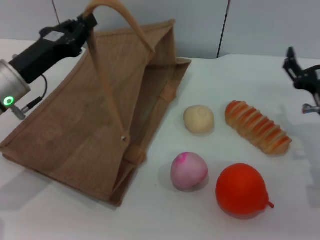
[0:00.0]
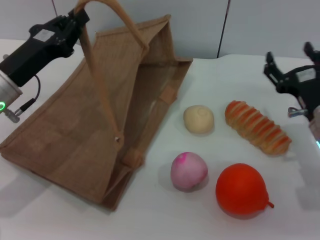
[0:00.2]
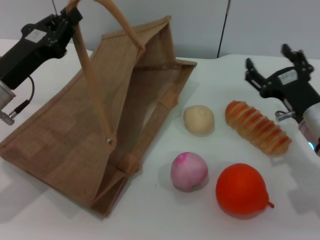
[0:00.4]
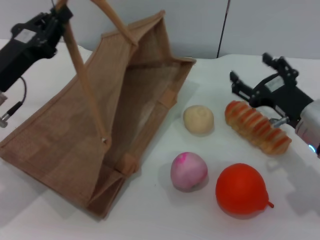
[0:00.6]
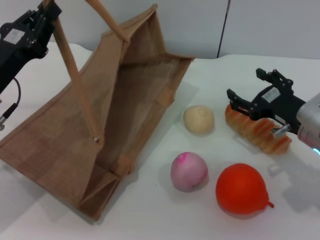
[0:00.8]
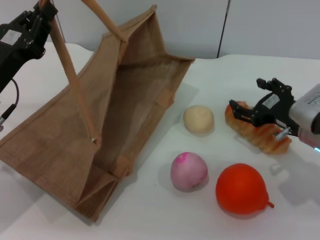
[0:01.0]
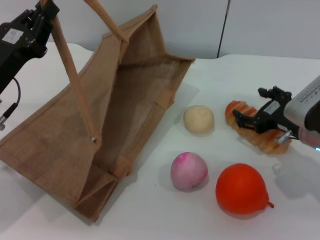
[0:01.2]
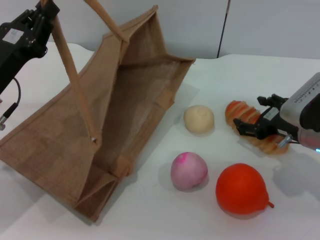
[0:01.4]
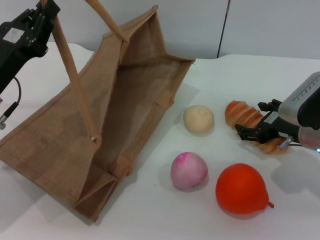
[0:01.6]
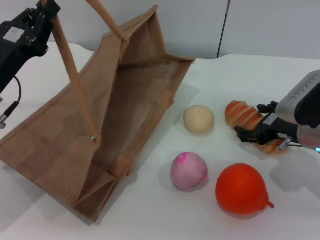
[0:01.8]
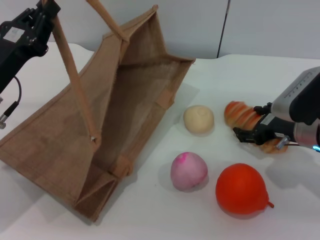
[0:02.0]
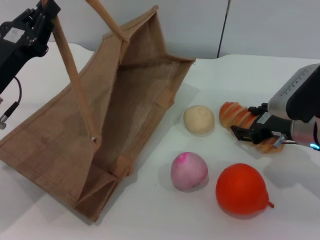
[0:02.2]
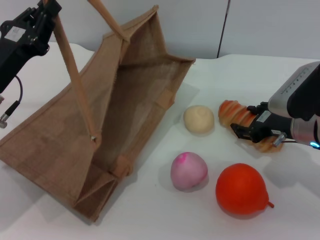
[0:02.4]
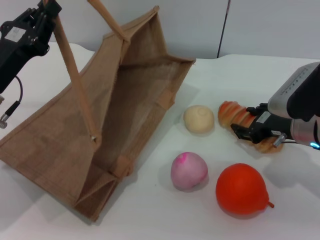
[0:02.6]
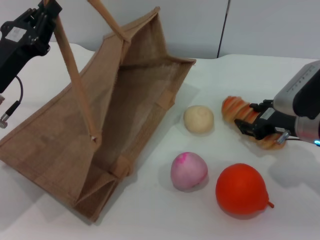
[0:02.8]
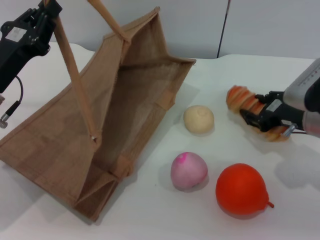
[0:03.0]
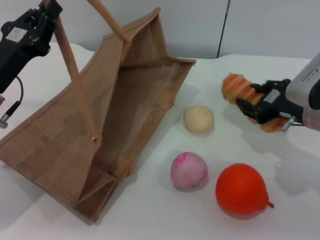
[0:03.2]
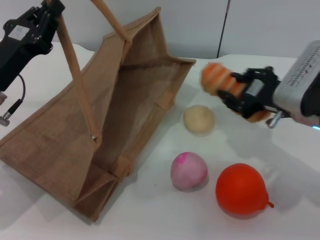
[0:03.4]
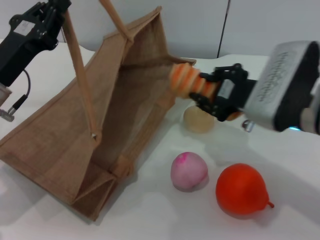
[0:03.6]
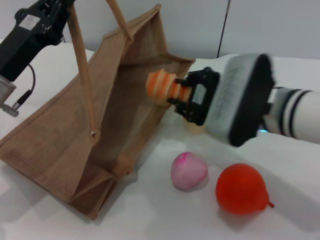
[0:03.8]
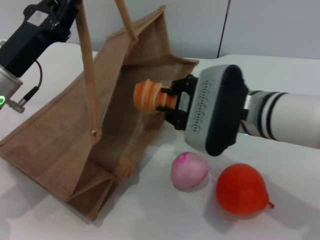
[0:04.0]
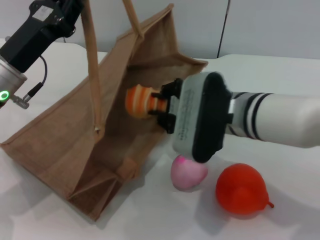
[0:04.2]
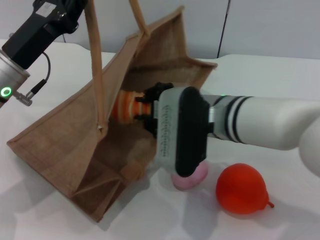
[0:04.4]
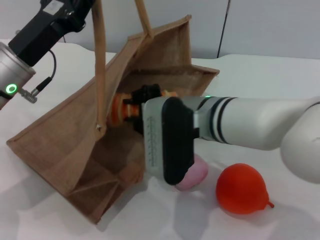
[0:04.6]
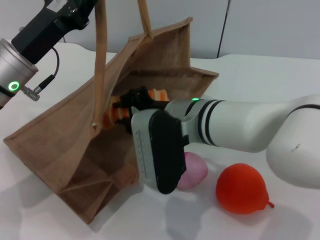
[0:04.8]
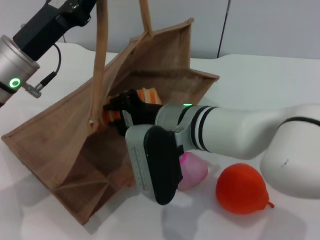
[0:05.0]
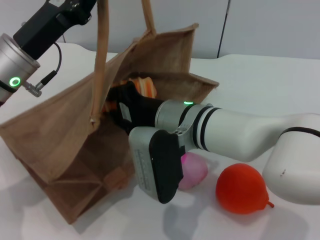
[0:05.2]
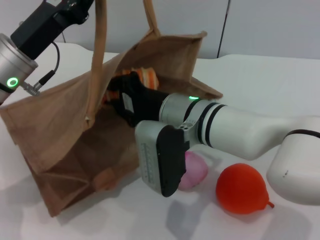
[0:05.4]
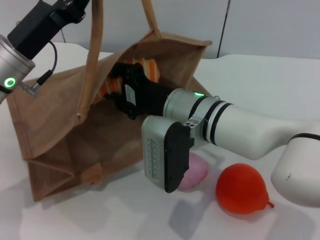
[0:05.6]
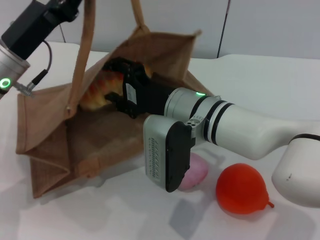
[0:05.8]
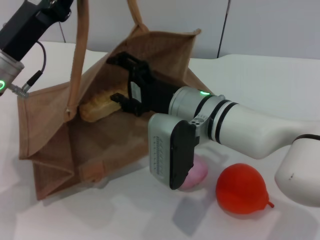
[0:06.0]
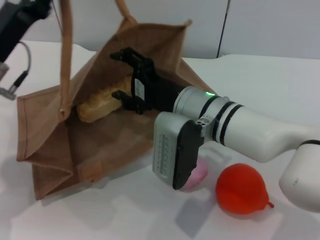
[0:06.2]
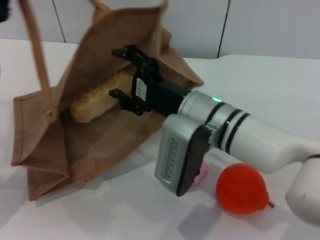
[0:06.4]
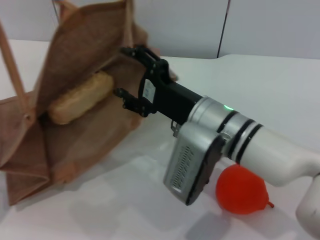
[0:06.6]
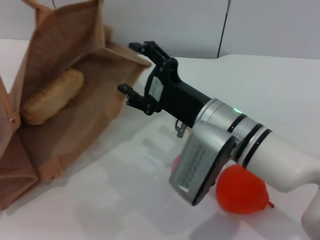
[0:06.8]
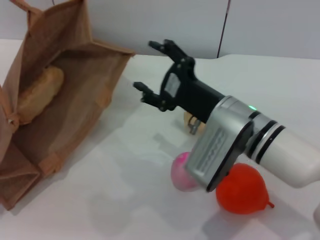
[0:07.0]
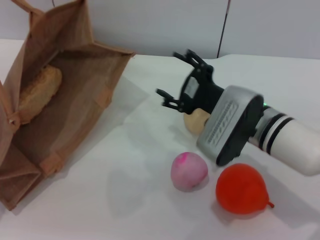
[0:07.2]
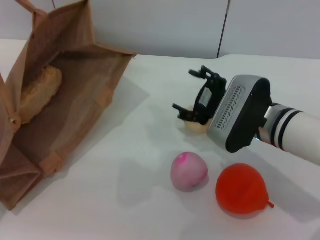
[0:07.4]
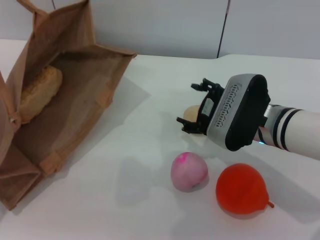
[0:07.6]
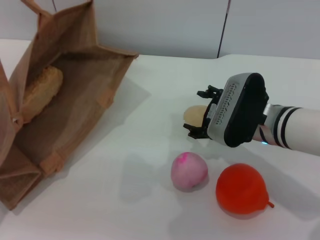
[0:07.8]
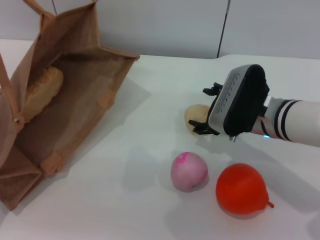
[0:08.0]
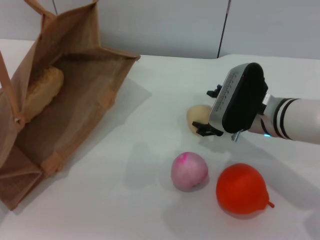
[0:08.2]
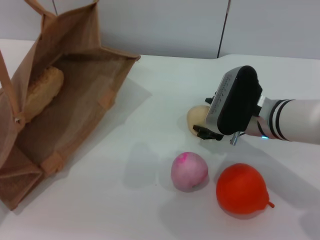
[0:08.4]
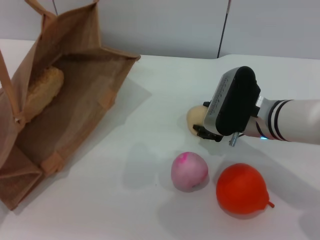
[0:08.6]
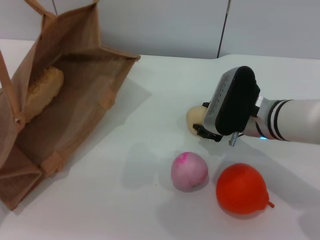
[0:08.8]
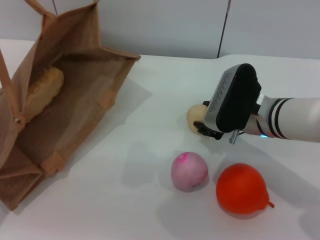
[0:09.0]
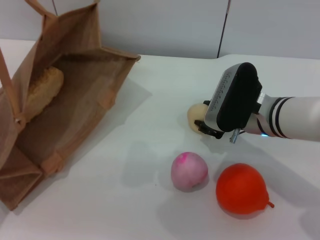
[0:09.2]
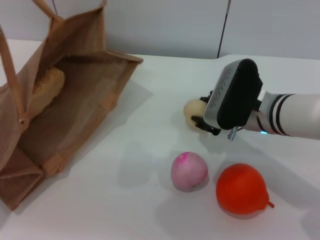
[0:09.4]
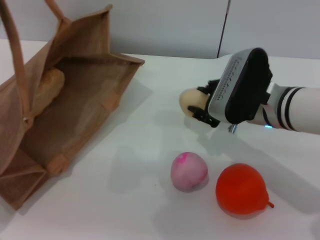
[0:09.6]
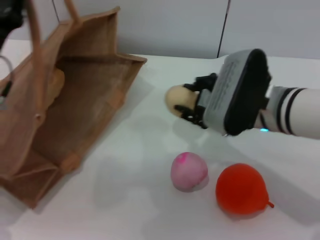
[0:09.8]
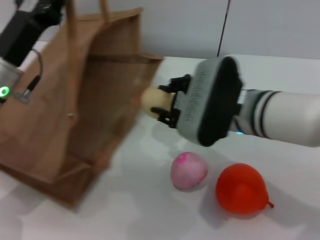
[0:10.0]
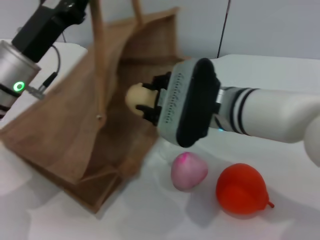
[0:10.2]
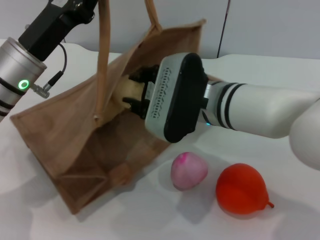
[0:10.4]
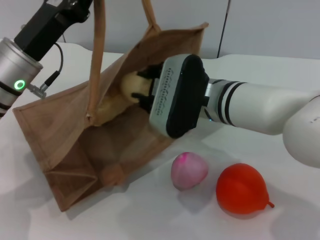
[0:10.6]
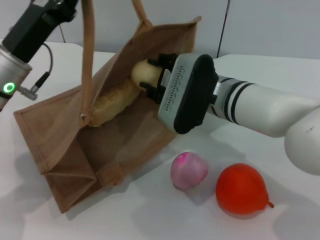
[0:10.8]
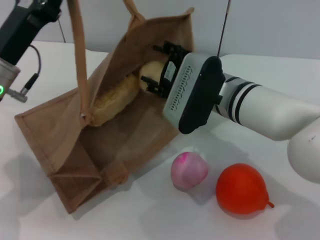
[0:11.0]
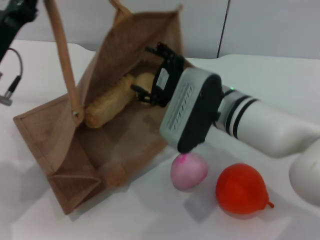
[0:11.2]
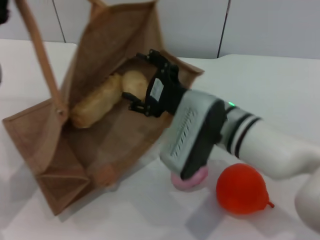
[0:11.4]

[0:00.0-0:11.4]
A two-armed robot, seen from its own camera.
Task of the whole recording: pick up the bread and egg yolk pastry from the table and place it in the brown handbag.
Step, 0:00.0 to 0:03.0: Pick up the bread with the right gripper.
Step, 0:03.2 to 0:06.8: Place the bread into the woven bag with the right gripper.
Step, 0:07.0 to 0:09.6: Pick up the egg yolk pastry with the right gripper.
0:01.4 to 0:02.8: The right gripper closes.
0:02.8 to 0:04.2: The right gripper moves to the left, about 15 cm, and closes up.
0:04.2 to 0:05.6: The right gripper changes place by some 5 cm.
0:05.6 to 0:07.2: The left gripper moves to the left and backward, approximately 10 cm. The right gripper moves to the right, some 10 cm, and opens its fingers.
0:08.6 to 0:10.0: The right gripper travels upward by approximately 5 cm, and closes its fingers, while the left gripper heads to the right, covering approximately 5 cm.
0:10.0 to 0:11.4: The right gripper opens up.

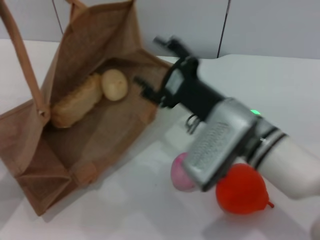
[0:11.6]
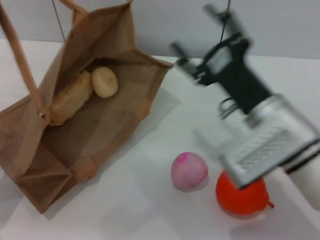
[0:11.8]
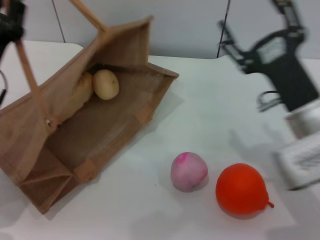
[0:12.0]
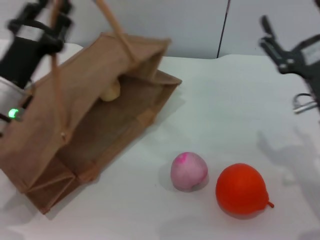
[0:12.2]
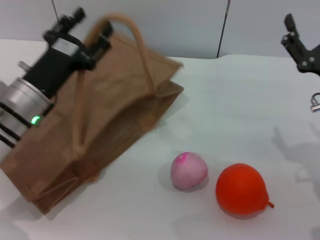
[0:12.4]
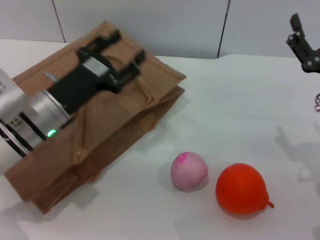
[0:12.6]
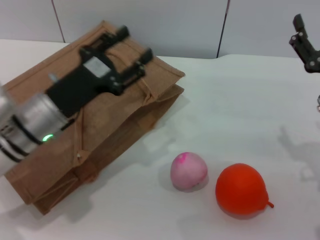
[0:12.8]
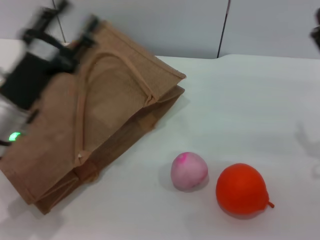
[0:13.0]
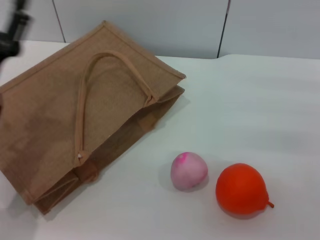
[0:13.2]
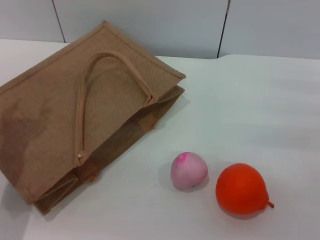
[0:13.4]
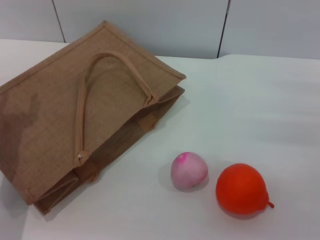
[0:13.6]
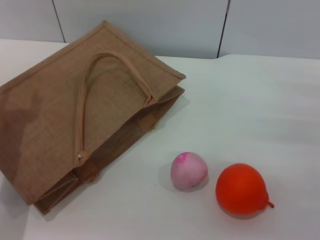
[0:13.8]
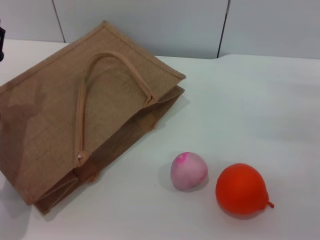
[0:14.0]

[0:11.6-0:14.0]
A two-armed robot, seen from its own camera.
Task of the whole recording: pick up the bread and egg yolk pastry from the table and place it in the brown handbag.
Step, 0:11.8 to 0:12.8: Lower the woven bag with the left gripper to close it.
0:11.6 to 0:12.8: The right gripper shifts about 15 cm to the right. The left gripper shifts some 10 cm to the right, and opens.
0:12.8 to 0:14.0: The right gripper changes place by approximately 5 cm; the left gripper is displaced to the left by roughly 5 cm.
